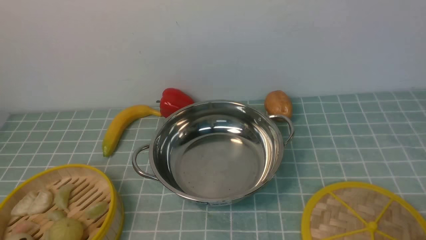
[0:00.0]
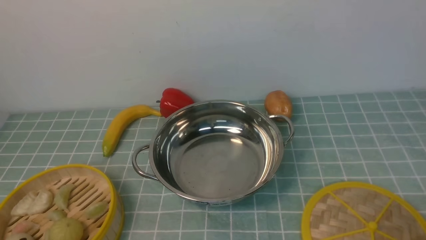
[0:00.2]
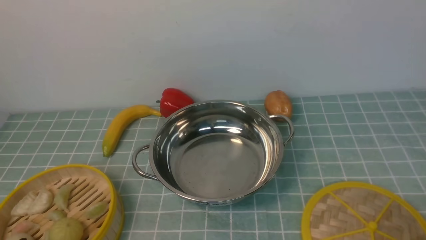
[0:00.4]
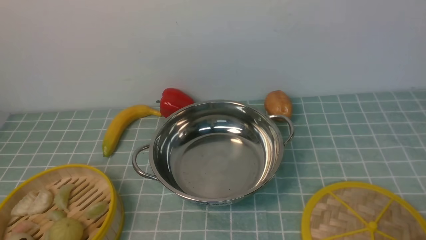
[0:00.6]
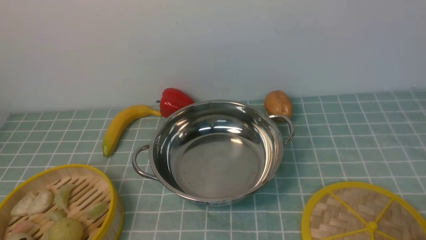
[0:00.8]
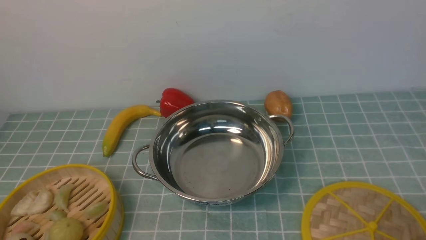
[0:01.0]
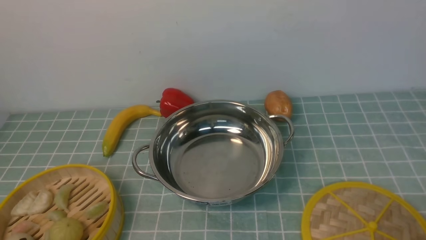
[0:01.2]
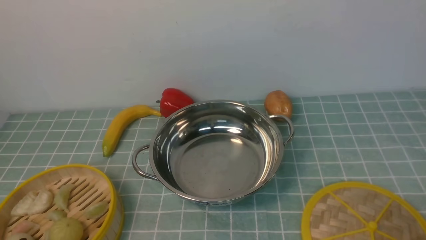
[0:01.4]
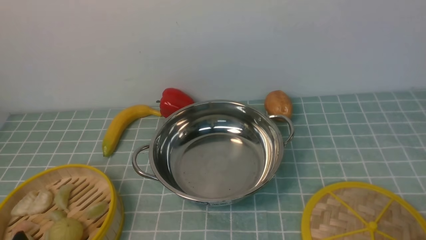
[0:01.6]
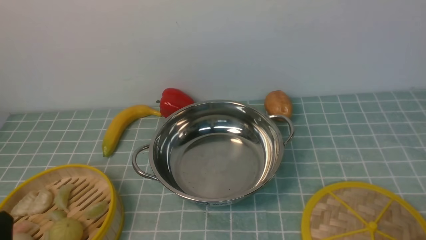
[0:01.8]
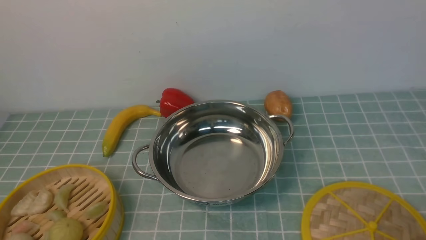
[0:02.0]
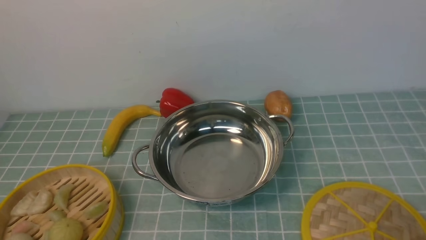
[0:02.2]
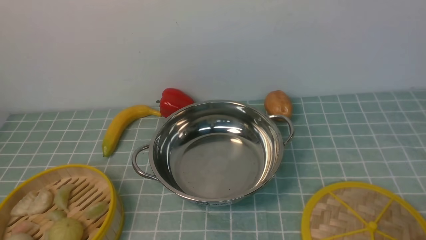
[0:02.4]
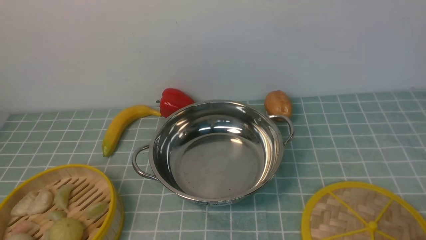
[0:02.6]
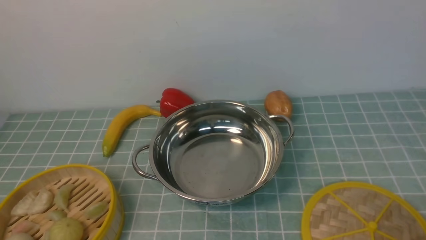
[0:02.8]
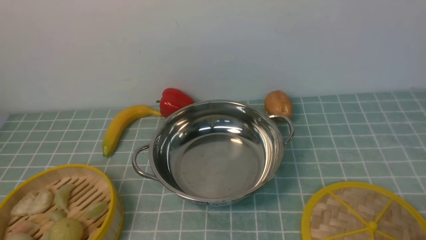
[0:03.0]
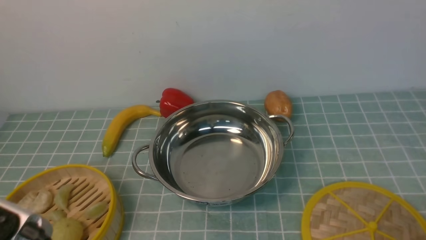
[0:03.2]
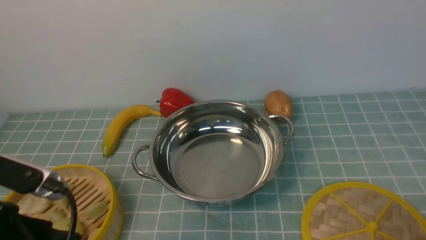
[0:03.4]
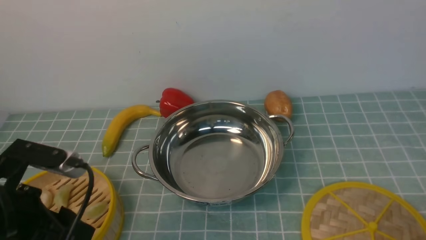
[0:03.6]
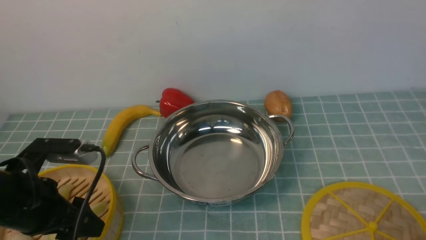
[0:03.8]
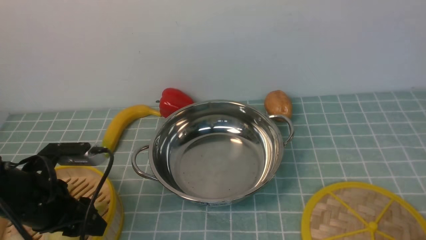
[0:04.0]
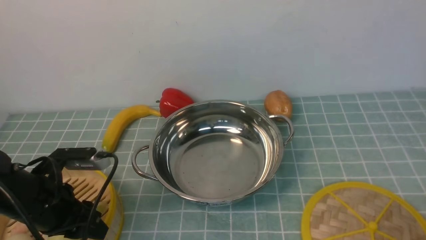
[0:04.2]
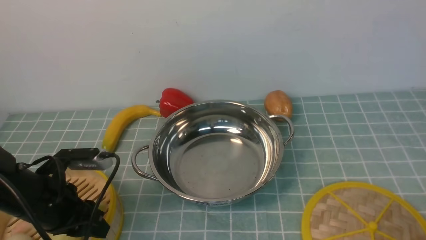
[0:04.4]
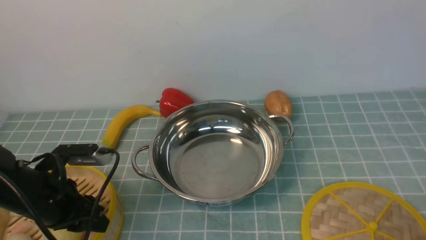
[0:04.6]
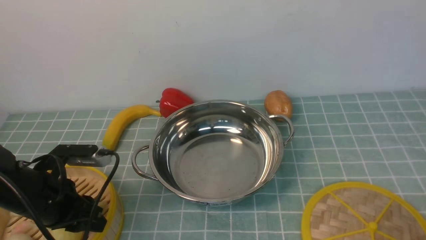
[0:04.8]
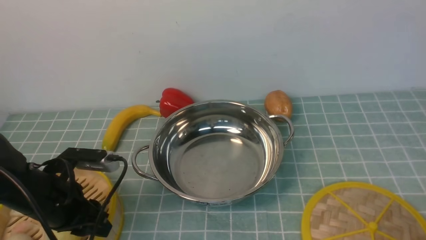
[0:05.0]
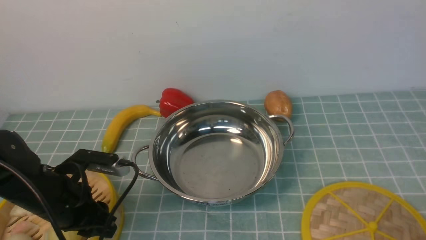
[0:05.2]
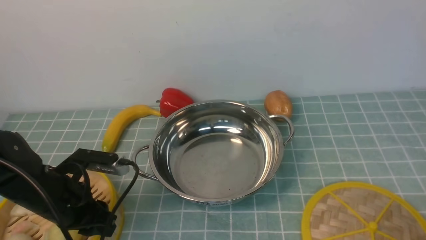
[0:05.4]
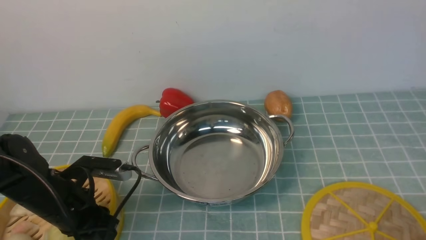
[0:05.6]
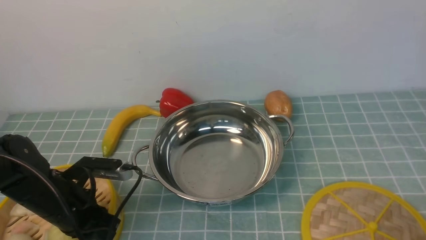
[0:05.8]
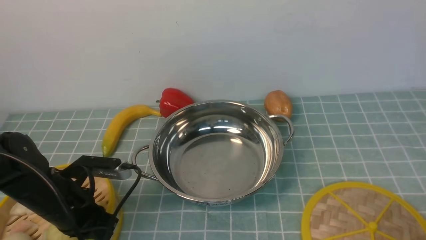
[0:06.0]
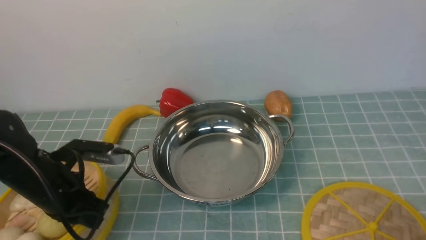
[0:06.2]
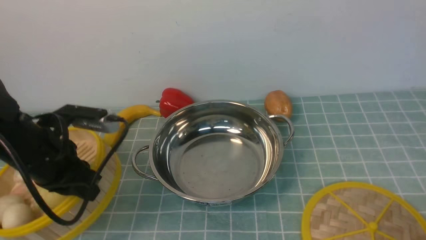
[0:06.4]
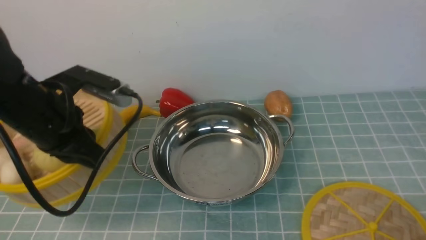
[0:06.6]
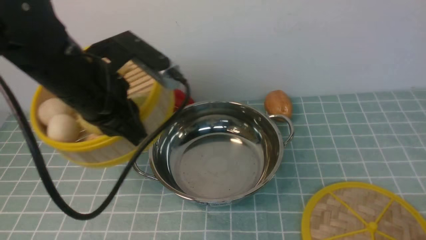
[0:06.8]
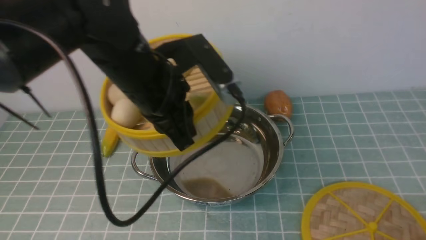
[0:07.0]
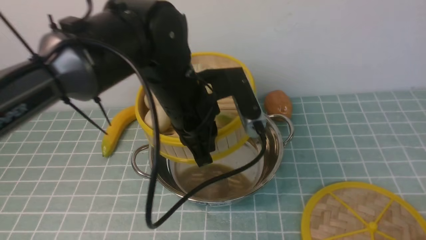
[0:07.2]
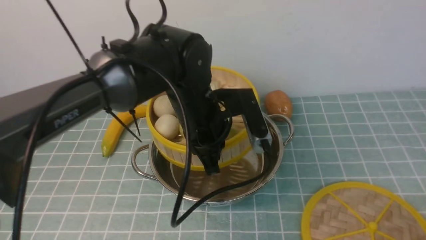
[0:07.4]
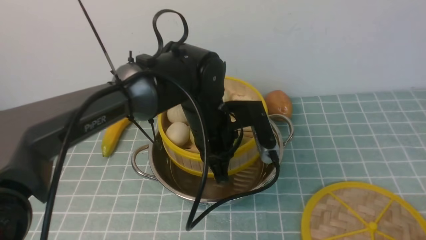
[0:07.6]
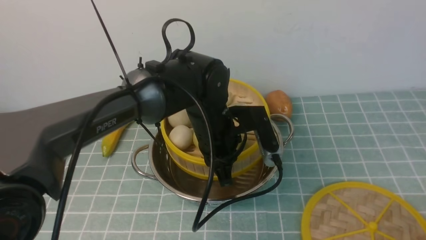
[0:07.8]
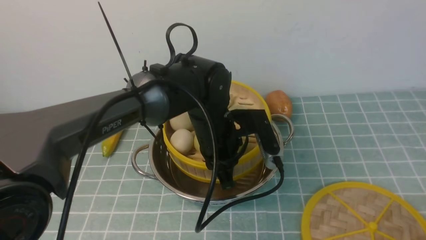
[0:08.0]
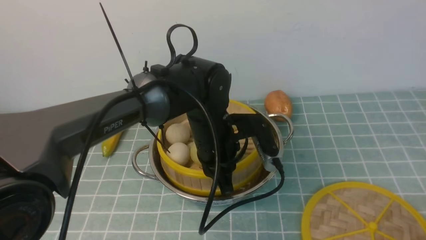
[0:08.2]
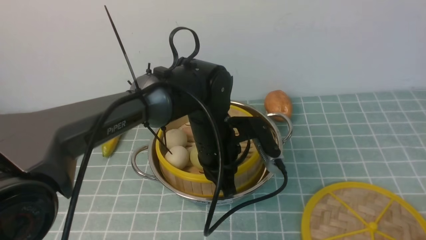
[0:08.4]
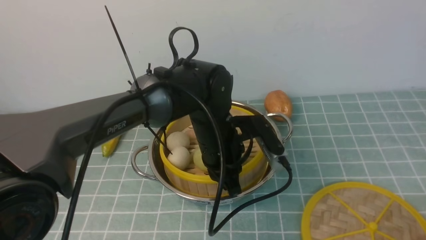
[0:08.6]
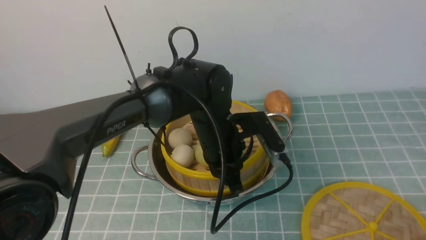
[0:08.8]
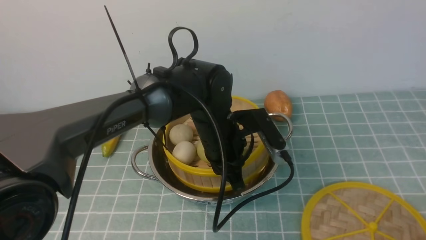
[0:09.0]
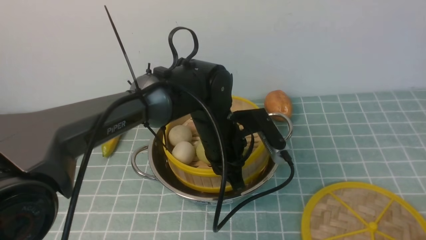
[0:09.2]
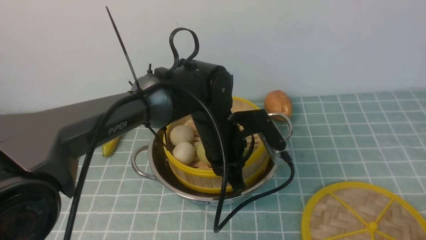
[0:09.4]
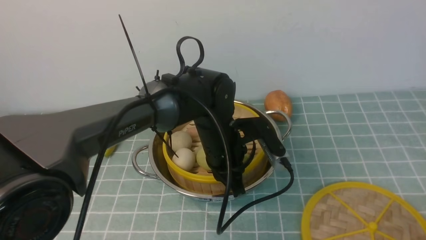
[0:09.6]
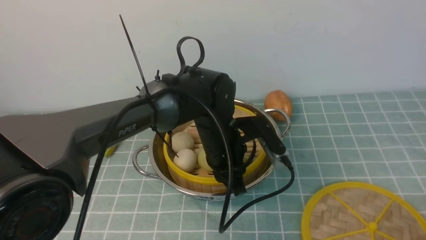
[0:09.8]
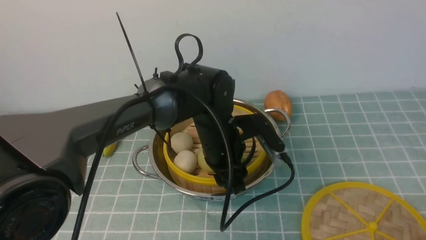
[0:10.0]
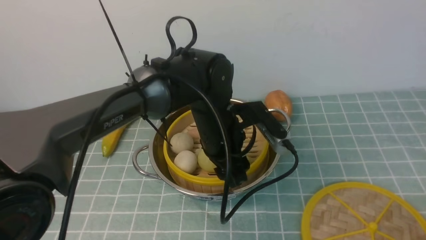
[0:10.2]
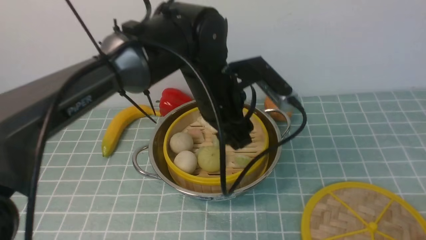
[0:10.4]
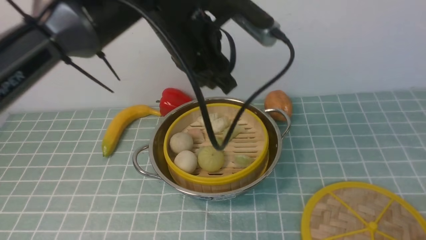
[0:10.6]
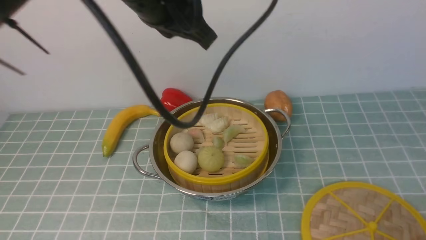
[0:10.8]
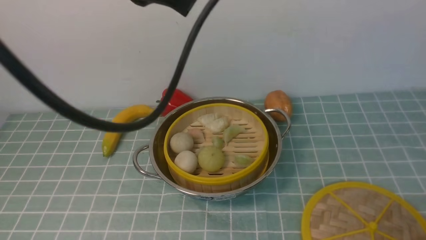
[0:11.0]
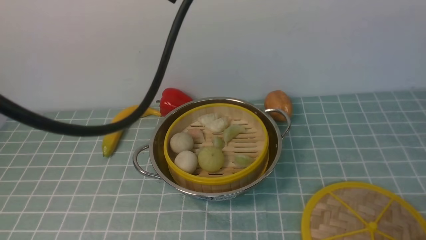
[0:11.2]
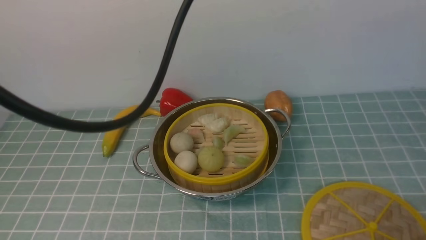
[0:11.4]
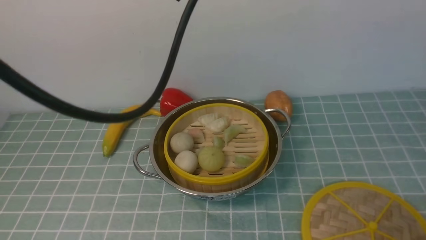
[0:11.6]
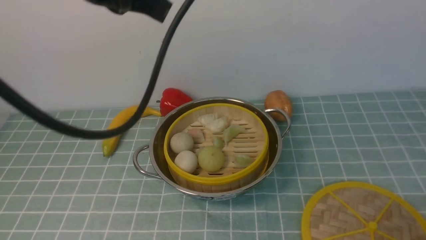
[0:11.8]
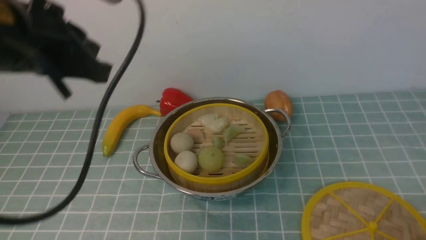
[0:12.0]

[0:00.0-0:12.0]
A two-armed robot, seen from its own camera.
Task of the whole recording: place the steamer in the pot on the blue tablecloth, and put the lid on the steamer.
Step, 0:00.0 to 0:06.4: use the left arm to lift the steamer closest to it.
Step, 0:06.8 to 0:10.6: use the left arm to put the steamer into the iron steamer pot in the middle.
0:03.0 to 0:04.4: The left gripper heads forward and downward, covering some 25 cm.
0:04.4 to 0:06.0: The left gripper closes.
0:06.0 to 0:07.6: The left gripper is displaced to the right and forward by about 25 cm.
0:07.6 to 0:09.0: There are only small adjustments of the grippers.
0:09.0 to 0:10.4: The left gripper heads upward, covering about 5 cm, and opens its fingers.
0:10.4 to 0:12.0: The left gripper travels to the left, upward and backward by about 25 cm, and closes up.

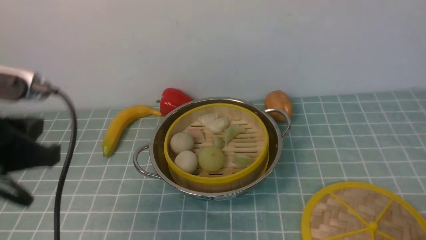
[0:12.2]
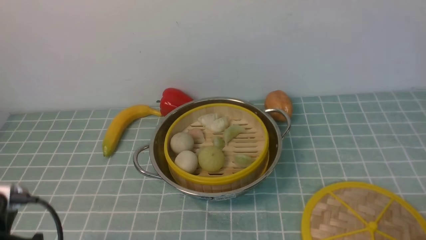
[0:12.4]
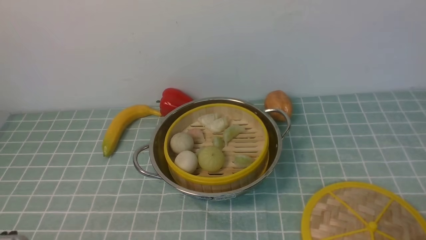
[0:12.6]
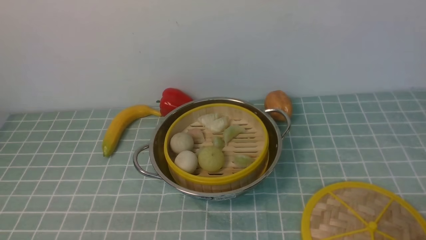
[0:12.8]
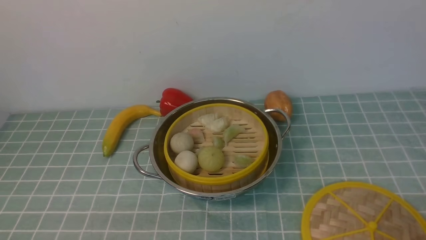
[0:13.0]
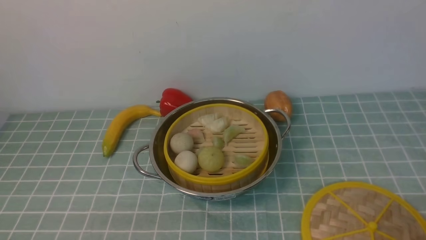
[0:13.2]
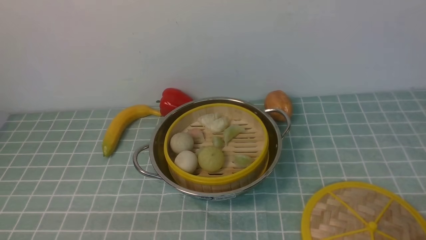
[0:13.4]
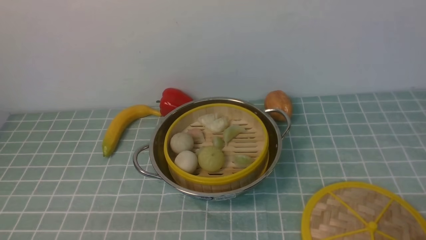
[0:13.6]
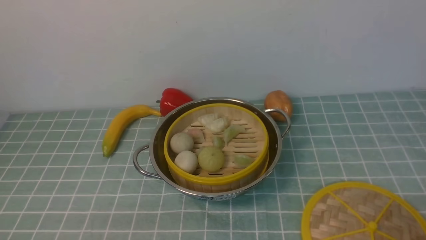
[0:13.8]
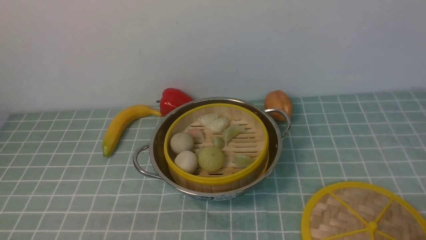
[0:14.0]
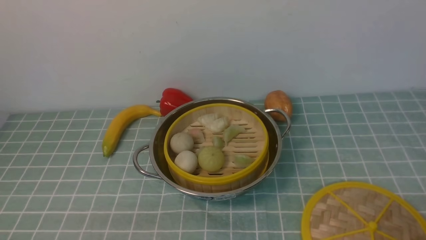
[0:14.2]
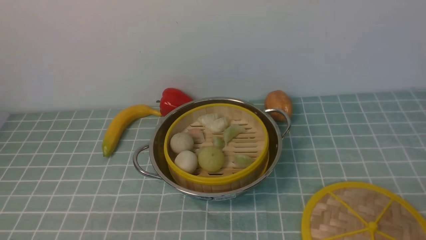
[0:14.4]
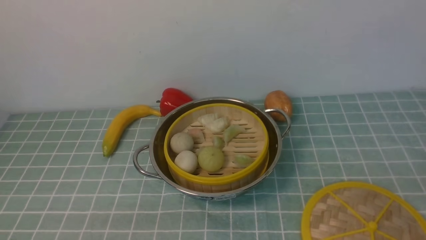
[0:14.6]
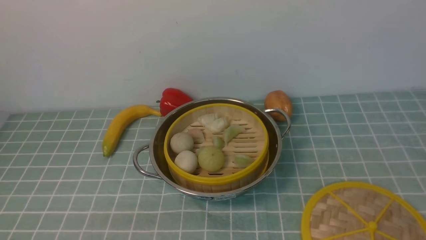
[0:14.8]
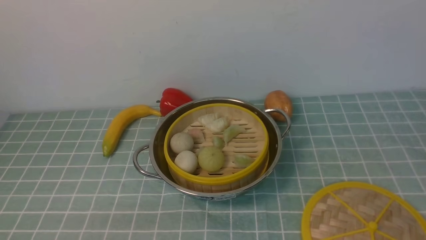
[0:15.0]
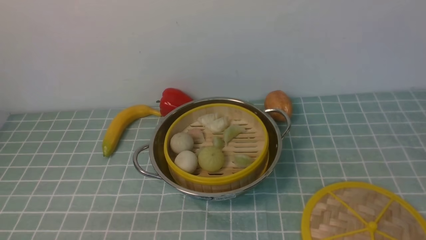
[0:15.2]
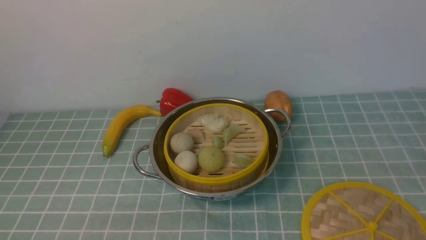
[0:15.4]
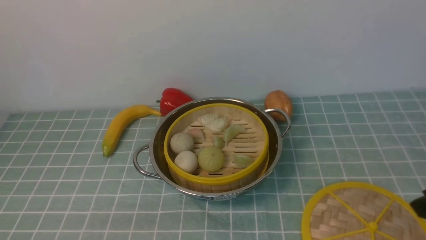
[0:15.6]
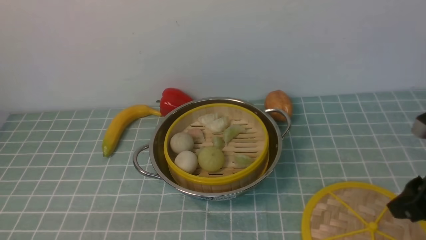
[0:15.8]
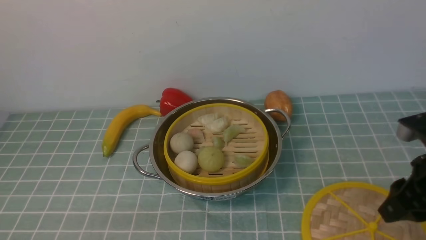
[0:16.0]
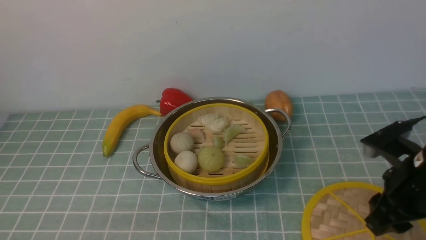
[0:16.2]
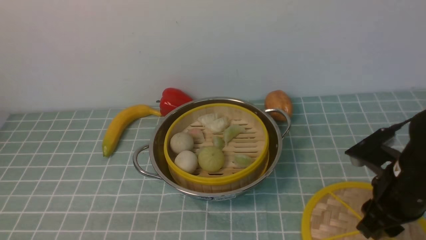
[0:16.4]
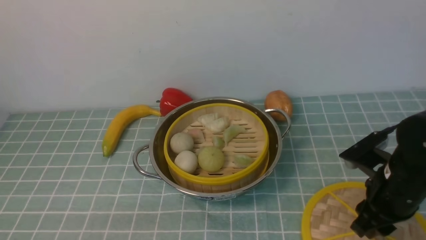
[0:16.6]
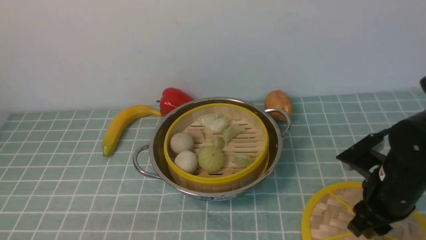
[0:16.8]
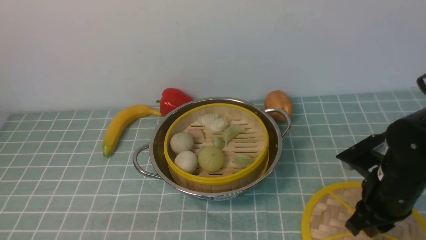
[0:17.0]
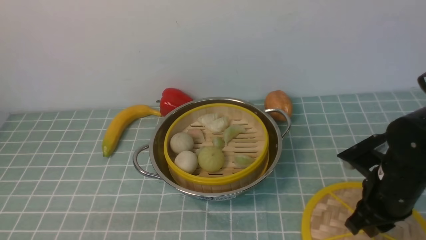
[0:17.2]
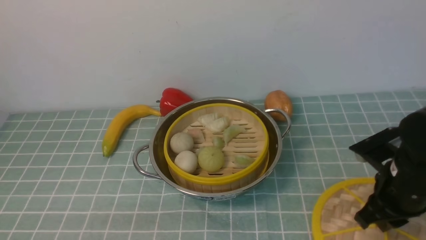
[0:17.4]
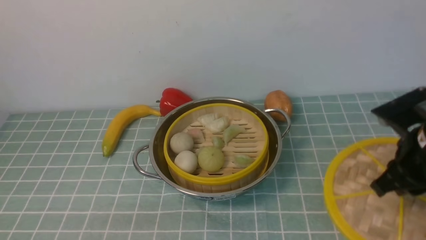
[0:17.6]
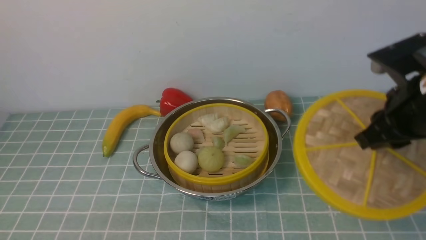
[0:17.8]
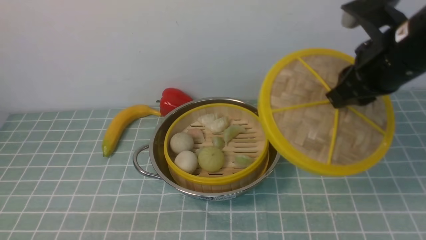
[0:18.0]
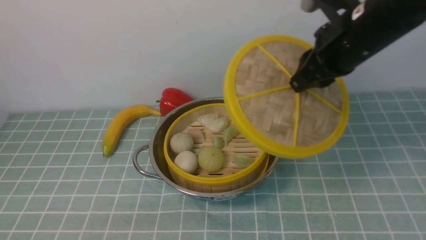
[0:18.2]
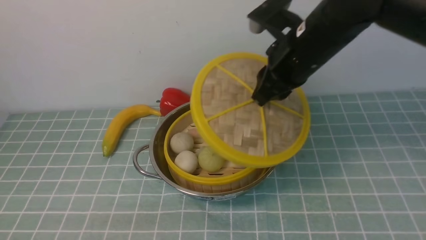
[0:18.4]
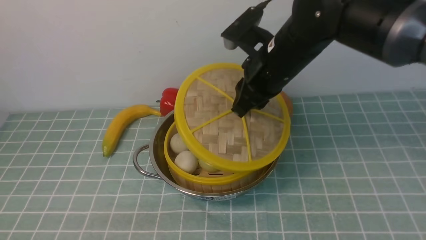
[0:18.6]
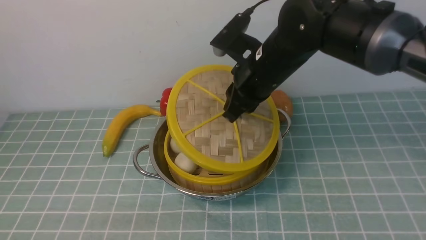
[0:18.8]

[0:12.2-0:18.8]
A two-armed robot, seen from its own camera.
Task of the whole recording: place the steamer in the pot on the blue tablecloth, and put the lid on the steamer.
Step, 0:12.2 to 0:17.6: use the right arm to lift the lid of the steamer.
0:12.2 to 0:13.8: The left gripper heads downward and backward, covering some 25 cm.
0:15.4 to 0:17.2: The right gripper moves downward and forward, roughly 20 cm.
0:17.2 to 0:18.8: The right gripper moves to the left, upward and forward, some 25 cm.
